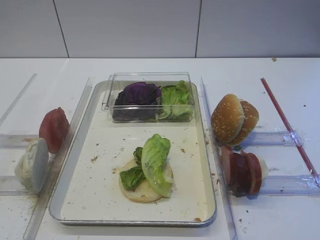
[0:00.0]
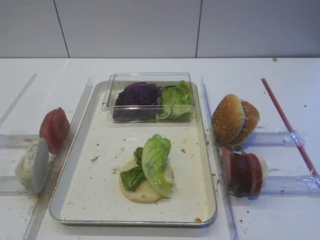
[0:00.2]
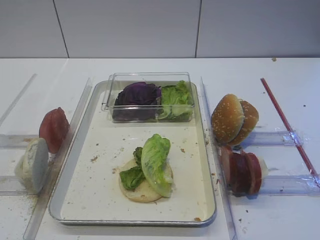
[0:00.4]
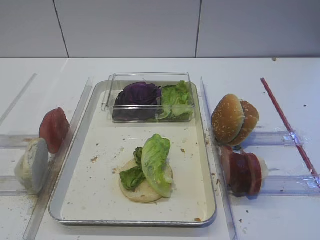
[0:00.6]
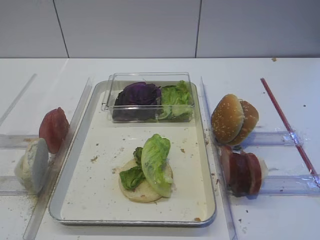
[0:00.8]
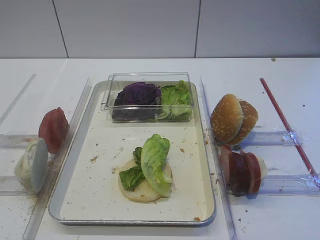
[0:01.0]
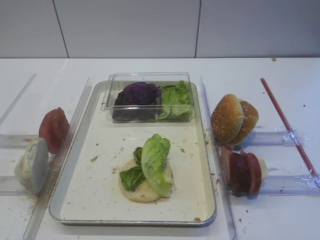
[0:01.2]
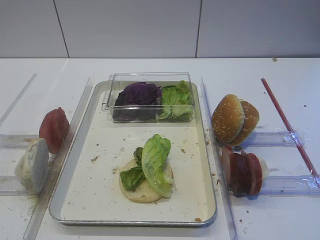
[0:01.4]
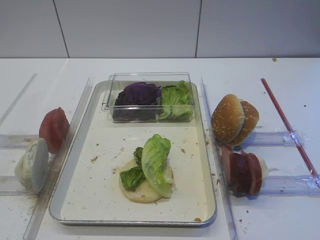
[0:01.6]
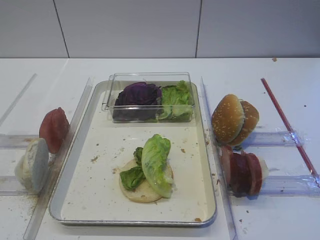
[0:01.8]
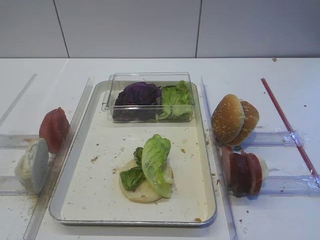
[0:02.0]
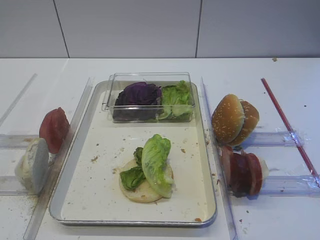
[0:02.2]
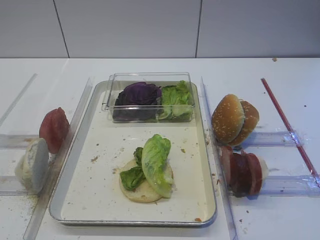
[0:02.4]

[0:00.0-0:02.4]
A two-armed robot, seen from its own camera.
0:00.0 to 0:02.4: The two grippers keep their place.

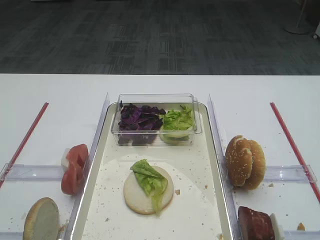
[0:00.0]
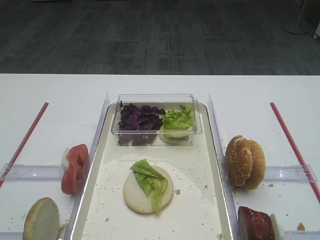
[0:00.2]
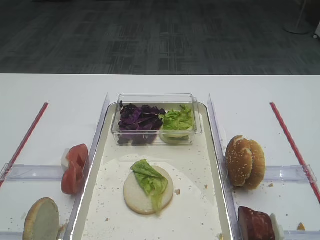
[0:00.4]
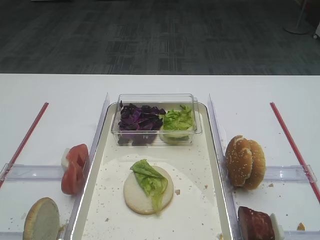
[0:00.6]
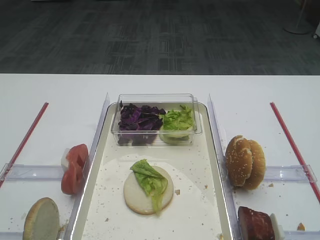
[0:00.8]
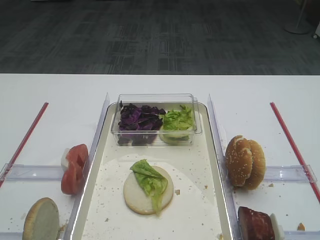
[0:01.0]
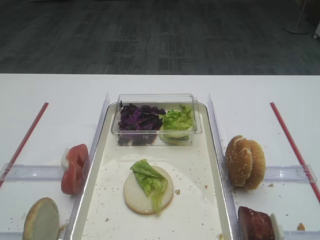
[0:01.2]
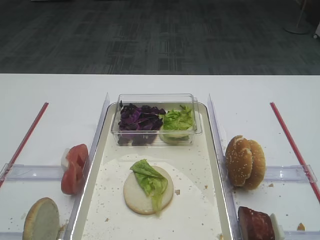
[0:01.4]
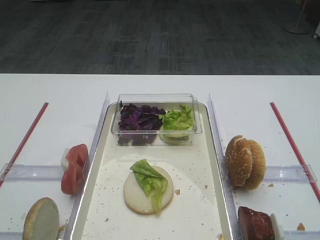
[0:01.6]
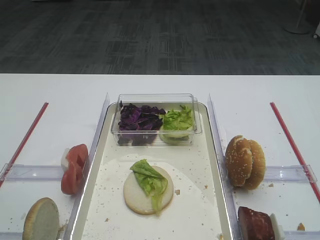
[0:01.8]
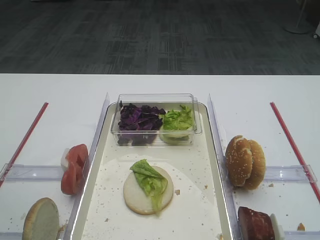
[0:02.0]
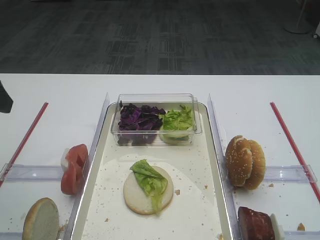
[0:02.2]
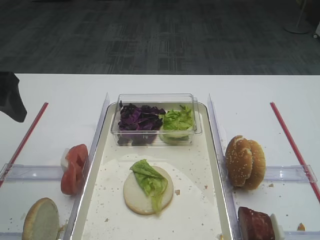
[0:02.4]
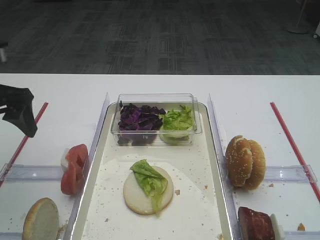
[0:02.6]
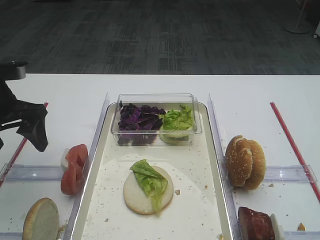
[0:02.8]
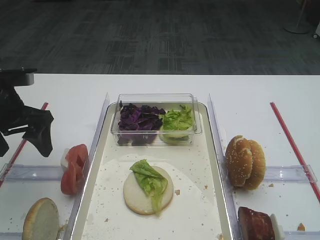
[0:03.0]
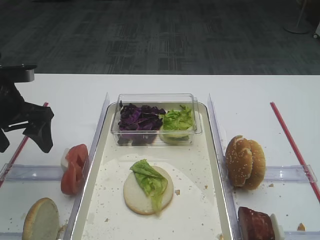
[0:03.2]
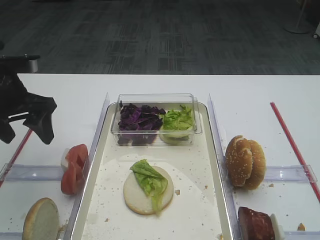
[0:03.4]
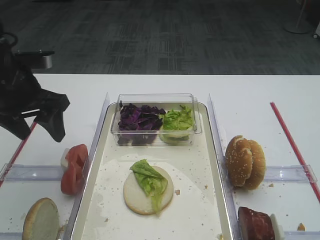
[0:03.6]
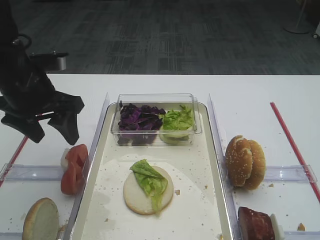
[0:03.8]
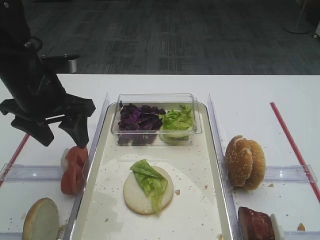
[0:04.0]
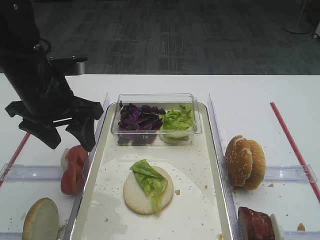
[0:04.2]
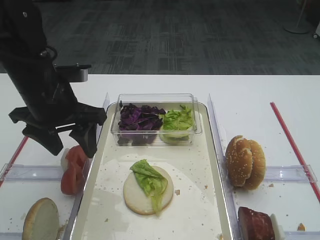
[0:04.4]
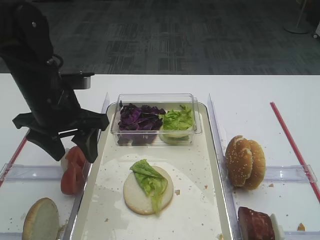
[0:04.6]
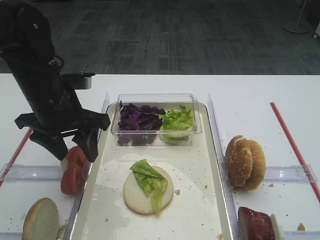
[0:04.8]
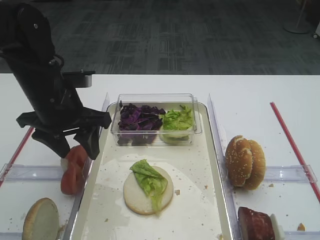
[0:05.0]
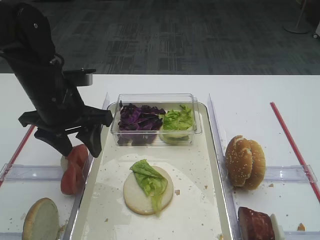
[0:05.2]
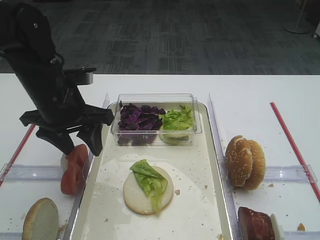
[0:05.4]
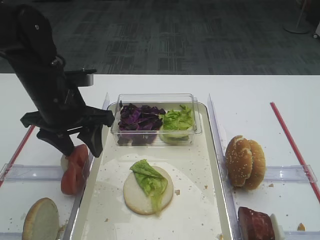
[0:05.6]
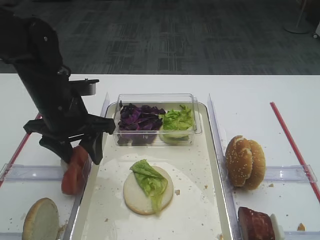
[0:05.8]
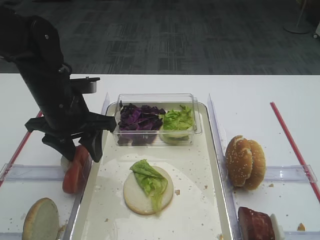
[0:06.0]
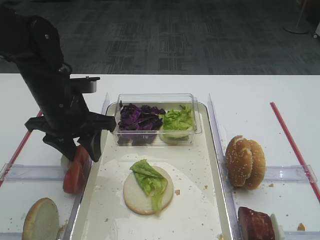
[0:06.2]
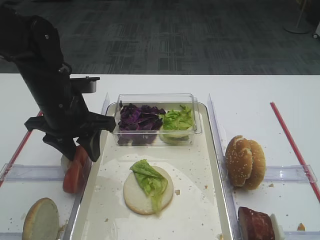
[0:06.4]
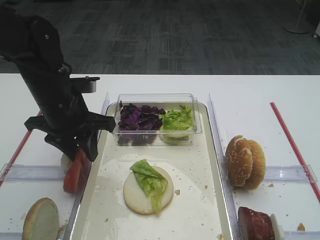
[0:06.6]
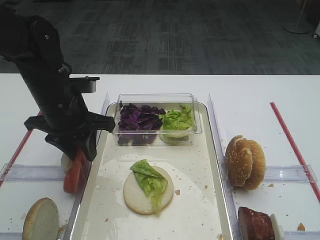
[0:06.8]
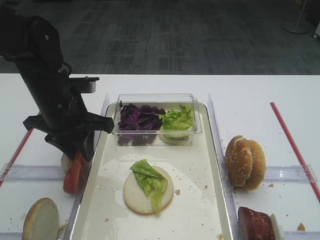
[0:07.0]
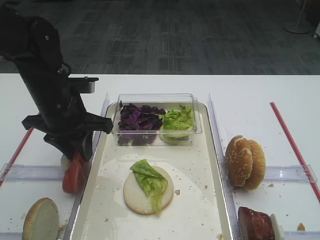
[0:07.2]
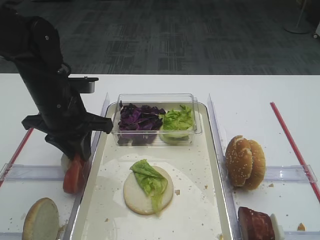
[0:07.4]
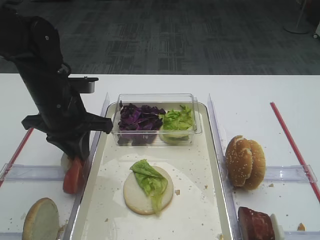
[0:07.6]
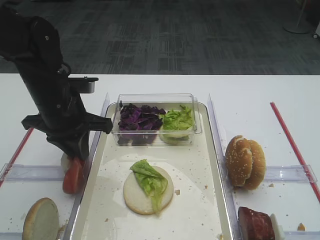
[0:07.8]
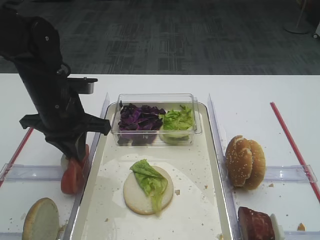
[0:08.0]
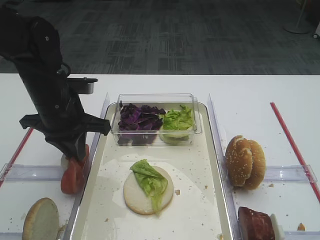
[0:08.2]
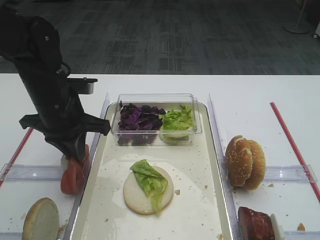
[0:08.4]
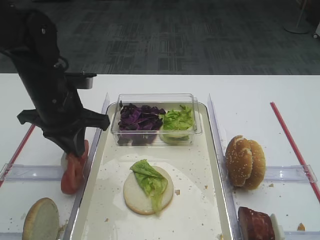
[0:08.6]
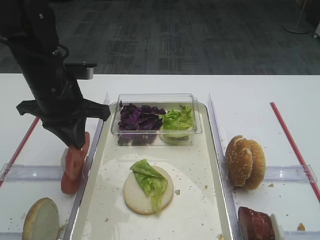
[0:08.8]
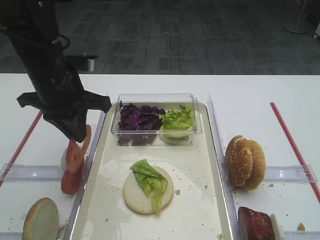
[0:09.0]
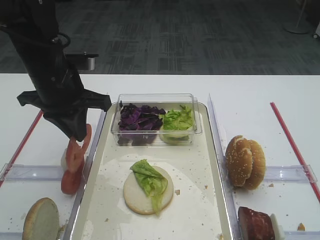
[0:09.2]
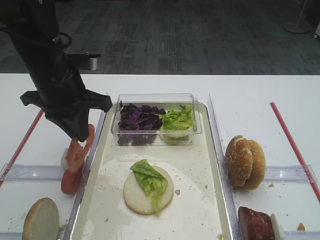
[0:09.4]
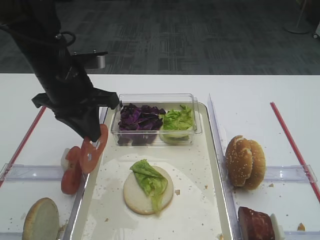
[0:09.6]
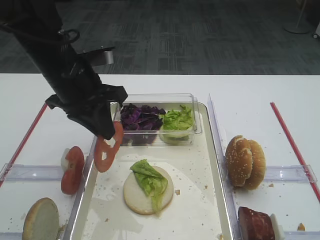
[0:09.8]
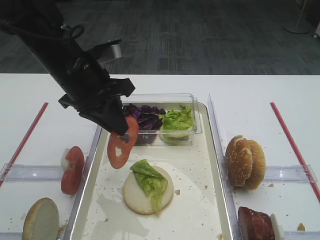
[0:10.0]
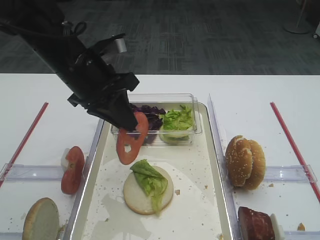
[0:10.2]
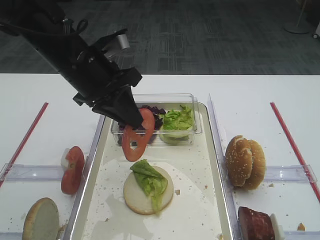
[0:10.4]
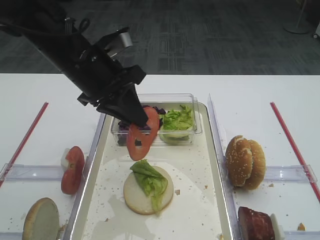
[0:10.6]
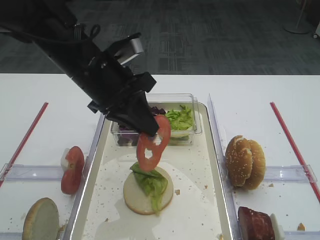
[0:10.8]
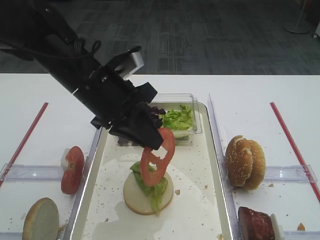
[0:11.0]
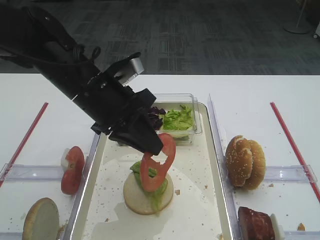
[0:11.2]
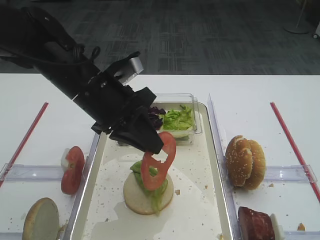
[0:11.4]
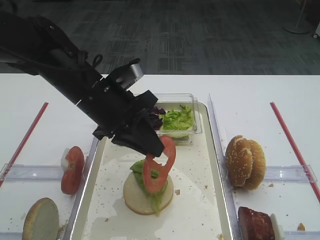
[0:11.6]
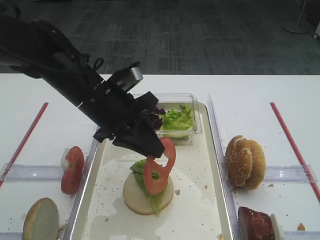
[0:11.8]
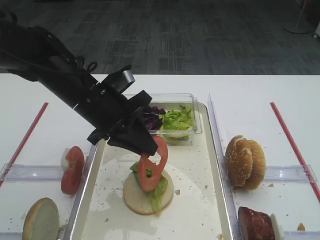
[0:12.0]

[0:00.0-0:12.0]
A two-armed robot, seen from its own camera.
Step, 0:00.0 to 0:09.4: Pick up the tomato slice with the left gripper.
0:01.6 to 0:03.0: The left gripper heads forward, covering approximately 25 cm.
0:03.0 to 0:04.4: The left gripper shifts about 10 cm to the right.
0:04.4 to 0:06.0: There are only small adjustments of the grippers.
0:06.0 to 0:07.6: The left gripper closes up.
0:07.6 to 0:09.0: The grippers move only a little.
0:10.4 to 0:12.0: The left gripper heads downward, covering roughly 5 cm.

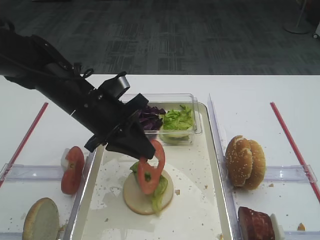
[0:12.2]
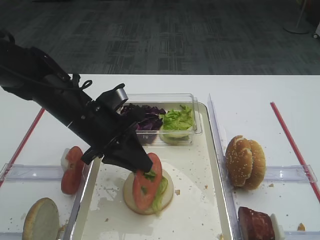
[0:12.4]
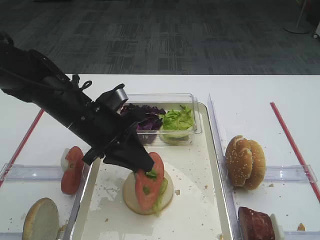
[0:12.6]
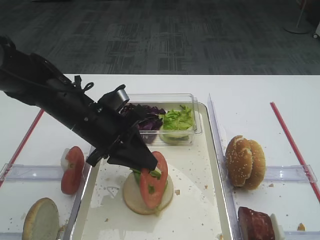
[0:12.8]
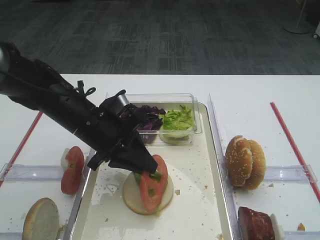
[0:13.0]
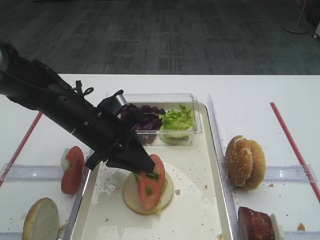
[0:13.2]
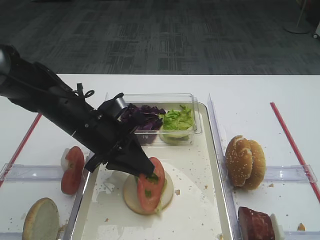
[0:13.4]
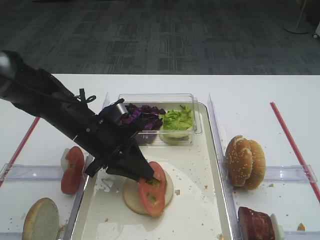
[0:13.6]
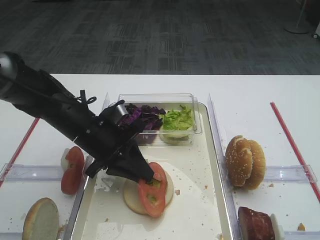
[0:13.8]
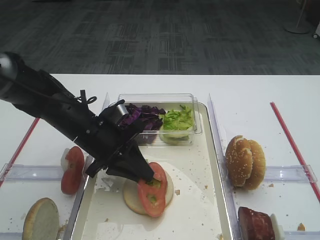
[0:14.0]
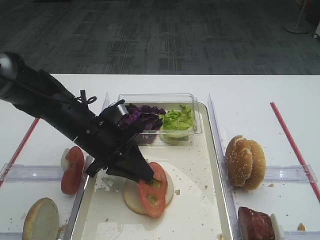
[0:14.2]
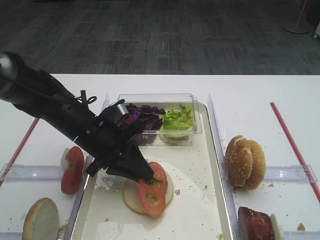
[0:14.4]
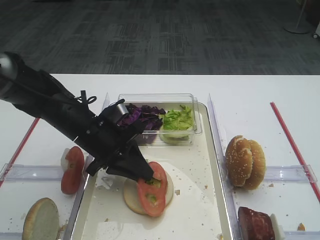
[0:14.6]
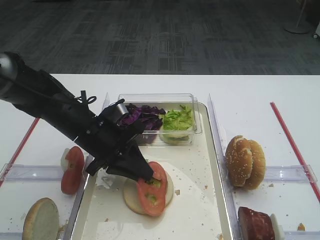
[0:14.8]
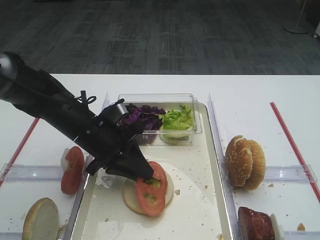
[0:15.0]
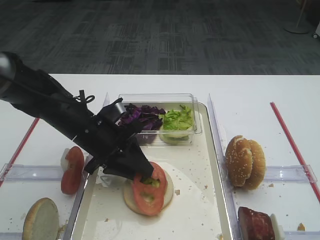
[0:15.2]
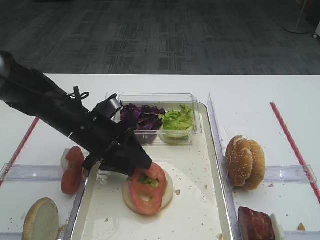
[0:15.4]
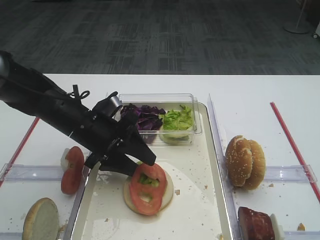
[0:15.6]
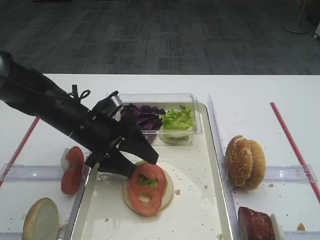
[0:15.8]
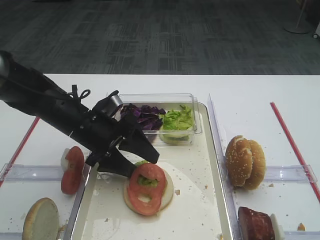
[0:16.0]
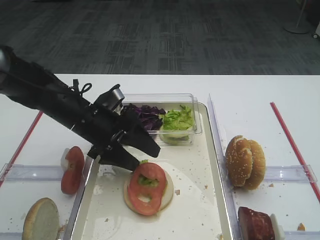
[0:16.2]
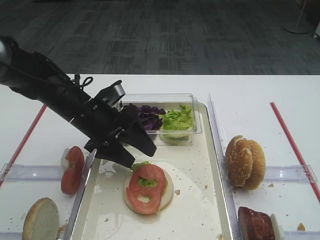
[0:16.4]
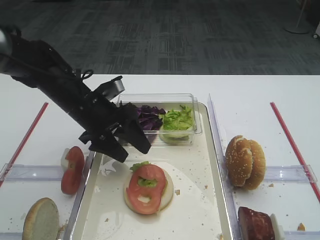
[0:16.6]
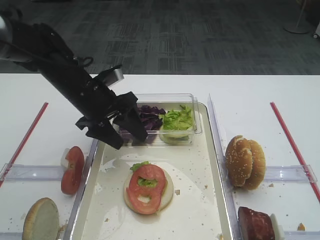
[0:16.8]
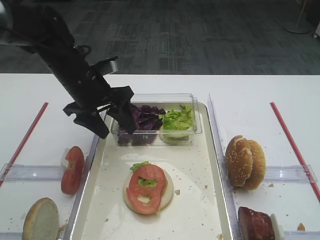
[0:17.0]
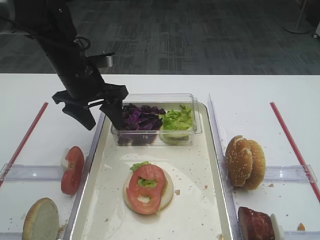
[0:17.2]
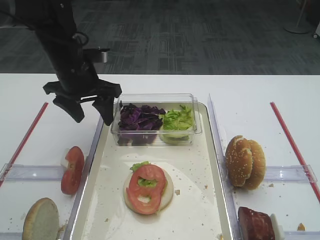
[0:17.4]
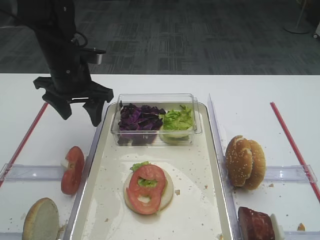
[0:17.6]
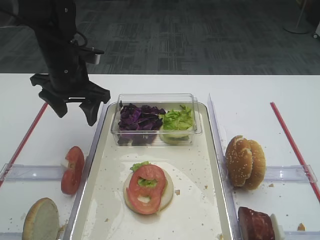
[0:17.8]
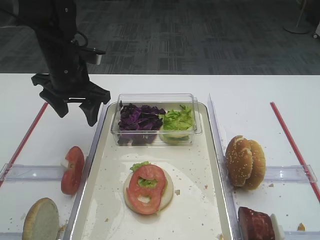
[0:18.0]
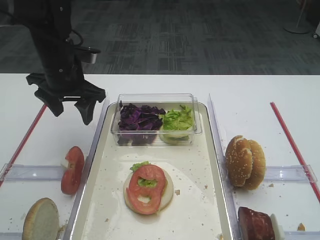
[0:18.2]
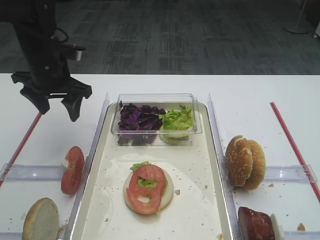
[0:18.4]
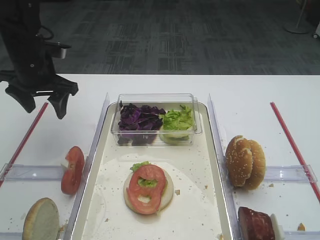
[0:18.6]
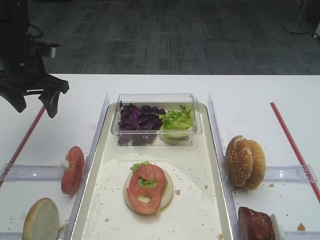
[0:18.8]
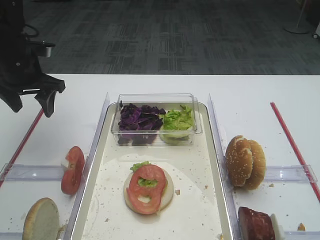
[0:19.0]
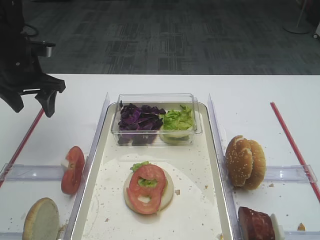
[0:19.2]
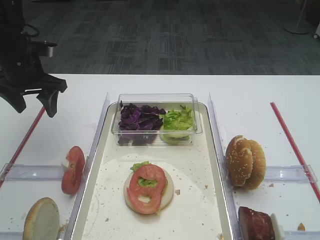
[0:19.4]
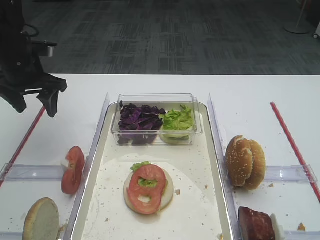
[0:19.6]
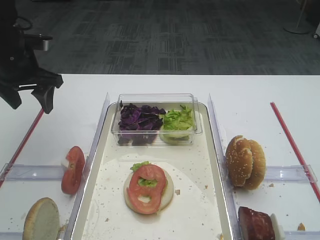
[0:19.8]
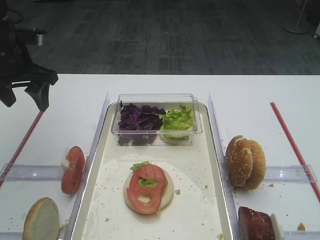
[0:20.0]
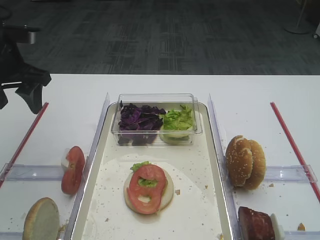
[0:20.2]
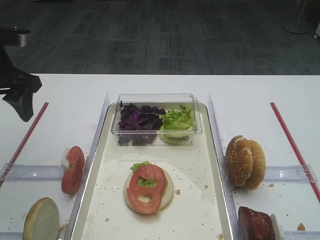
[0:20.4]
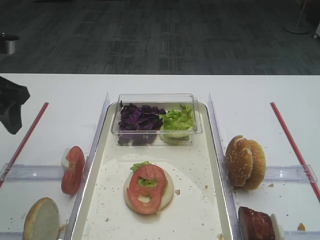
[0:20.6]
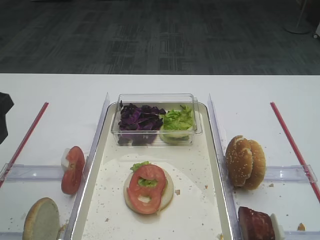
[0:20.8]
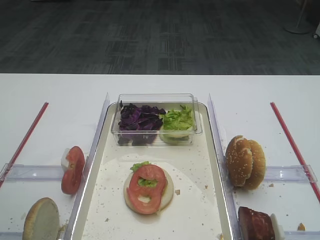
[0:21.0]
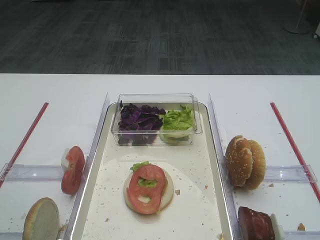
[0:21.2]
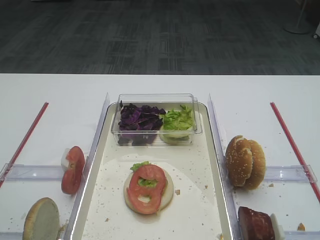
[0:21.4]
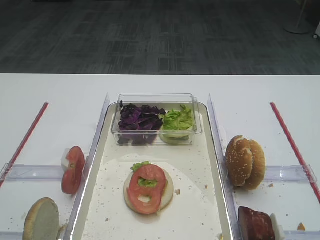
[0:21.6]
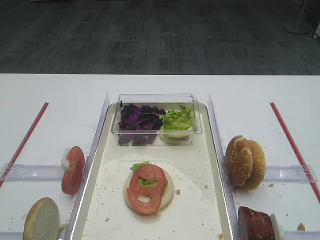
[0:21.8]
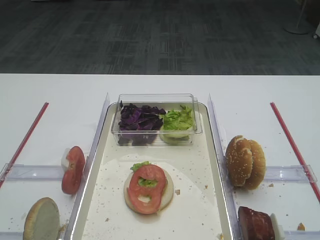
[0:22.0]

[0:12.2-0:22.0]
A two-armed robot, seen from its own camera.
Step, 0:12.2 to 0:16.6: Place the tomato slice on the lettuce leaf with the left gripper.
0:12.2 to 0:13.6: There are only small adjustments of the grippers.
0:13.6 to 0:15.0: Both grippers stay about where they are.
0:15.0 to 0:16.4: The left gripper opens up.
0:16.4 to 0:17.8: The left gripper is displaced forward and upward by approximately 10 cm.
0:17.8 to 0:19.2: The left gripper is displaced to the left by about 10 cm.
0:19.2 to 0:20.6: The left gripper moves backward and upward, some 15 cm.
0:20.6 to 0:22.0: The left gripper goes roughly 25 cm backward.
